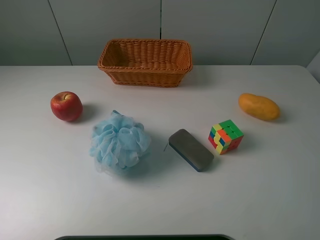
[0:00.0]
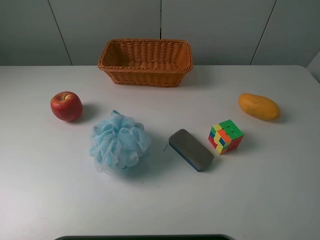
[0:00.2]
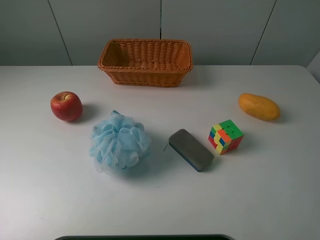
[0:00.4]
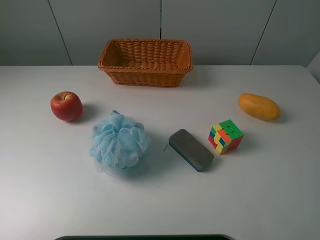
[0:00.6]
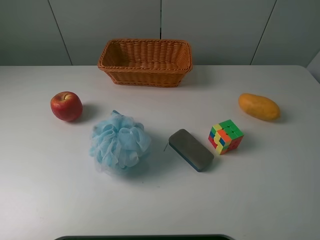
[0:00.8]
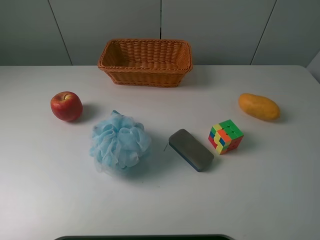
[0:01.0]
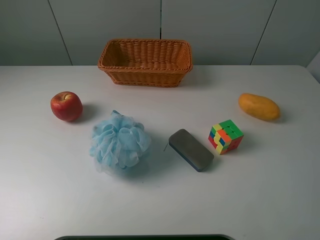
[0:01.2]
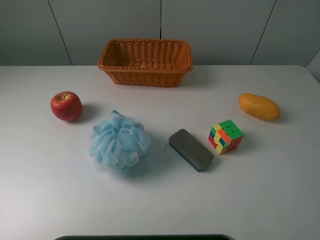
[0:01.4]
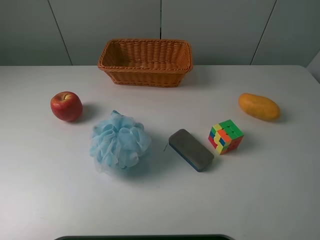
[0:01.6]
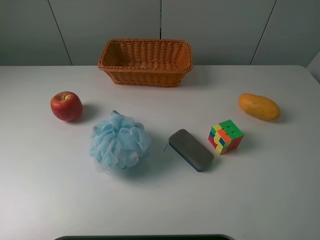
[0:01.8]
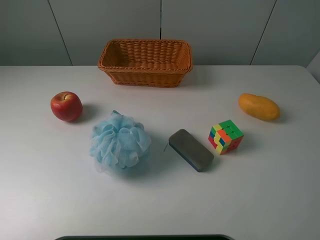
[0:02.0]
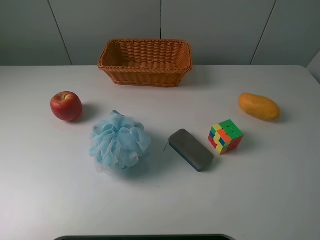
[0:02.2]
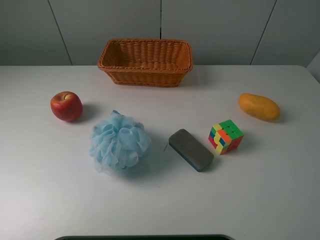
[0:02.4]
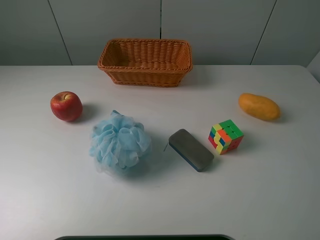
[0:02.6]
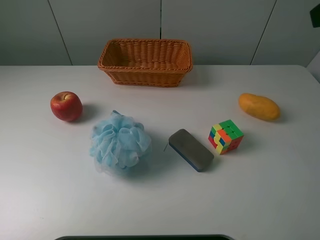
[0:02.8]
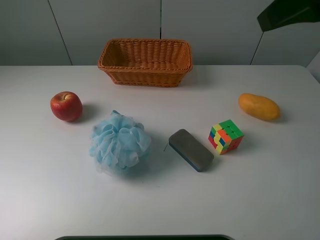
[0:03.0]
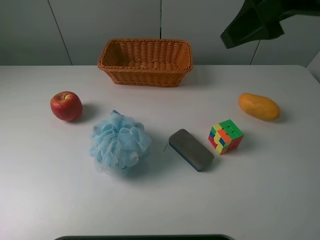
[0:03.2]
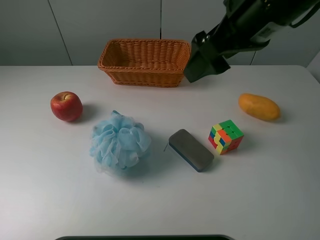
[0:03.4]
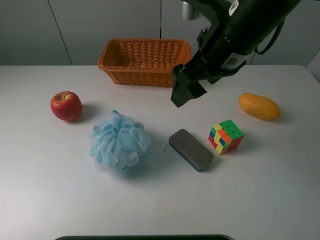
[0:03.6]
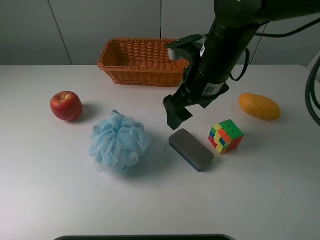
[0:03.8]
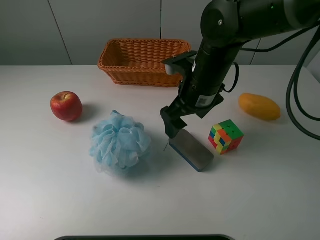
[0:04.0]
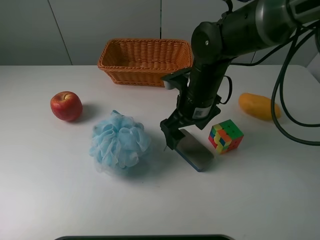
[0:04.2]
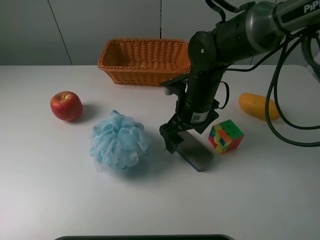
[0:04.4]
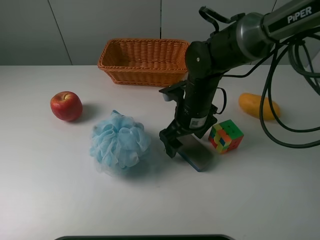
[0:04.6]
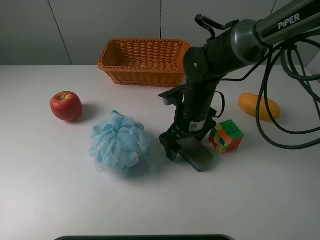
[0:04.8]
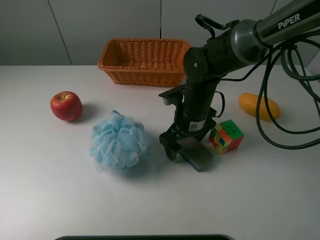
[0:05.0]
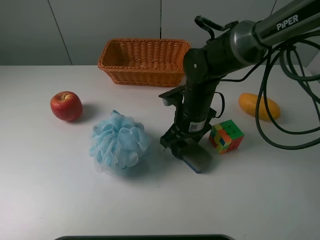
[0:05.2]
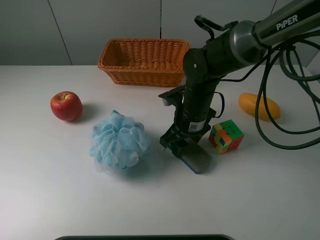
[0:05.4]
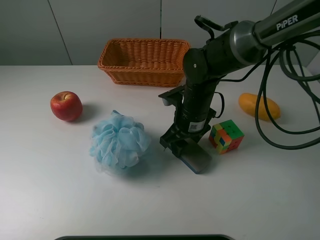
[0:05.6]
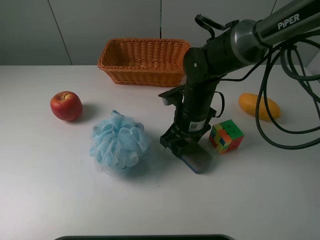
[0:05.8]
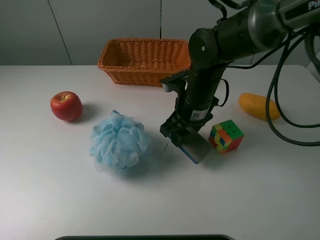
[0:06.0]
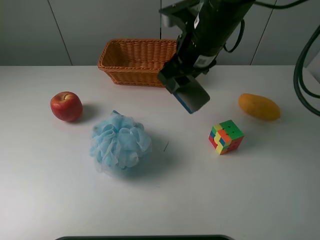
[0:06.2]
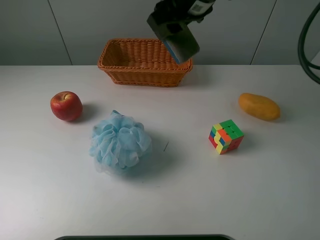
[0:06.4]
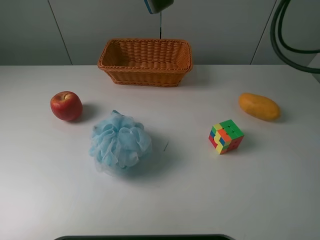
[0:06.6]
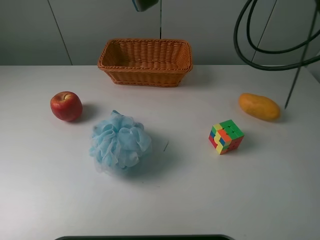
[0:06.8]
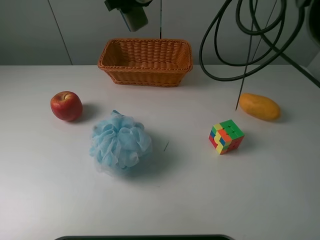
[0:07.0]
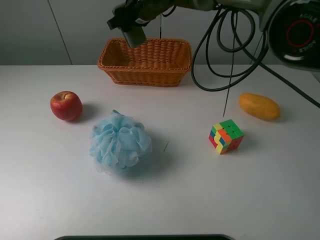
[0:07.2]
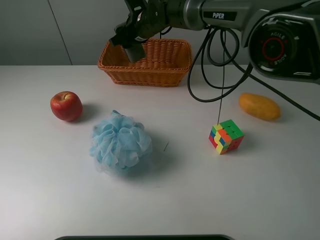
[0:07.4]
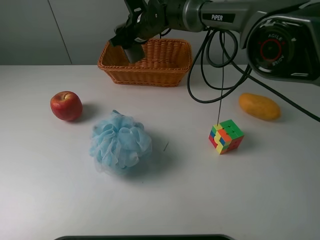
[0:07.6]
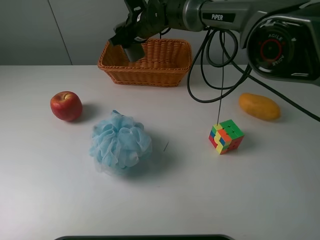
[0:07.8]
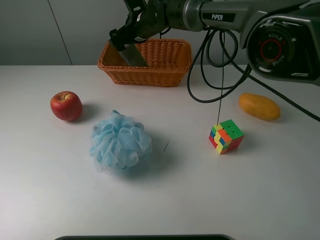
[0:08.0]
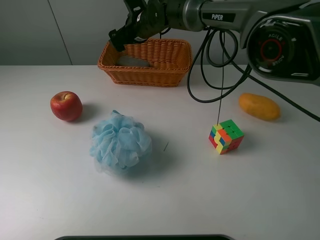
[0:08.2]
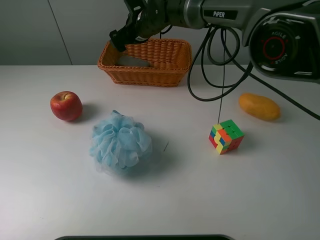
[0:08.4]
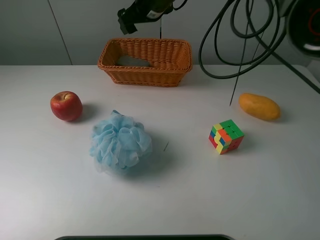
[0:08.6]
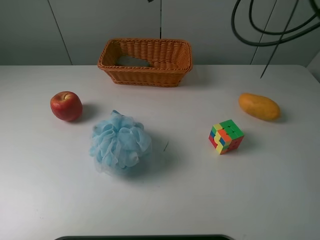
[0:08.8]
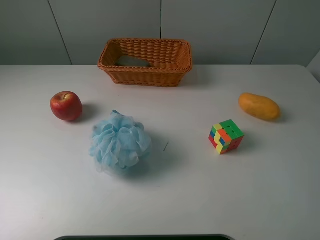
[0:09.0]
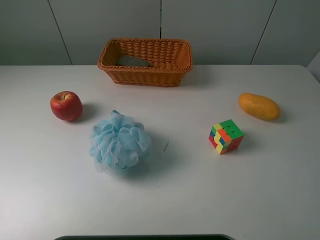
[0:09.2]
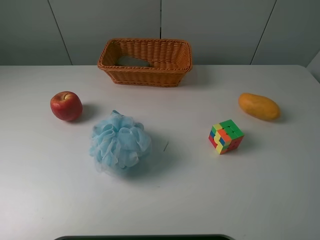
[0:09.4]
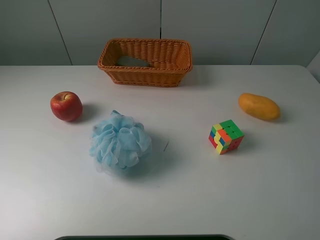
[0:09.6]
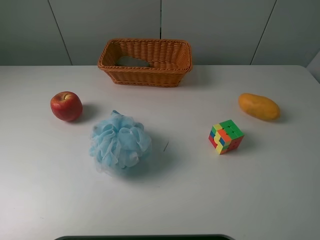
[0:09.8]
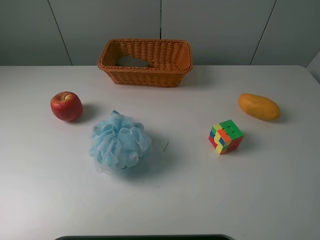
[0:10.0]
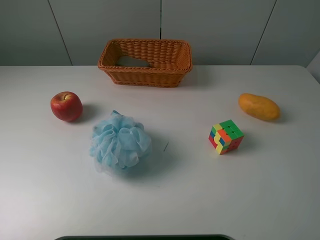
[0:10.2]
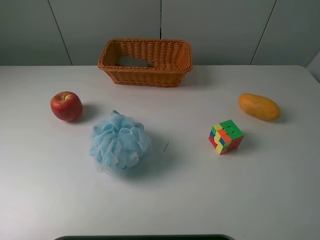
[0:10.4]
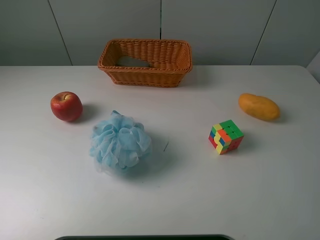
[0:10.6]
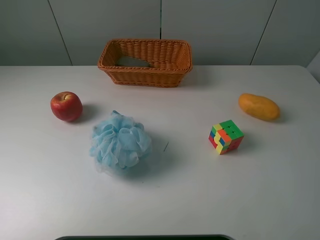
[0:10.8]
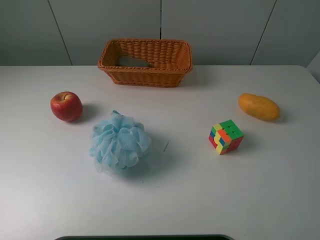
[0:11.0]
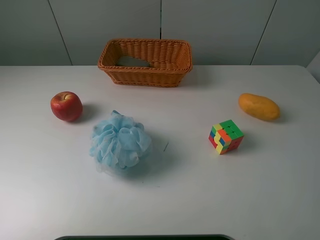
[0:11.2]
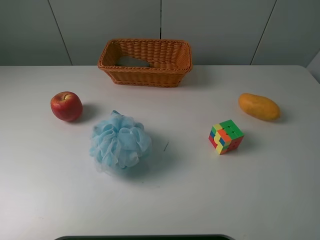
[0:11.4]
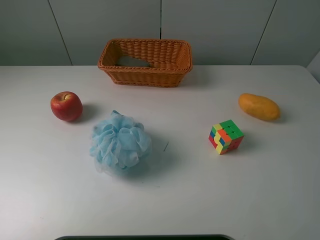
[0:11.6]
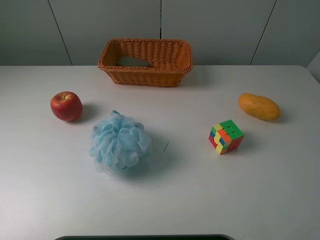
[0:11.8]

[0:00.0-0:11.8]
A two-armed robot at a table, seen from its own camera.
Task of the whole recording: use a picker to grab the item closest to the cube and place it in the basket.
Step, 0:00.0 to 0:05.4: Grasp the blackboard erasure with the right gripper.
Step, 0:05.6 to 0:08.4: Place the blackboard erasure into the basket with the right gripper.
0:00.0 to 0:01.4: Both grippers stay put.
0:01.4 to 0:03.0: The right gripper travels forward and upward by about 25 cm.
0:03.0 to 0:04.4: The right gripper is displaced downward and to the left by approximately 30 cm.
0:04.4 to 0:06.0: The right gripper closes.
0:06.0 to 0:07.4: The right gripper travels forward and to the left by about 20 cm, and moves roughly 20 cm upward and comes back.
0:07.4 to 0:08.8: The right gripper is displaced upward and to the right by some 20 cm, and opens its fingers.
0:08.8 to 0:10.4: The right gripper is displaced backward and to the right by approximately 50 cm.
